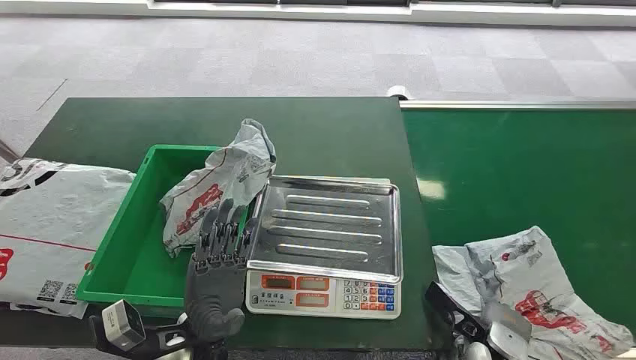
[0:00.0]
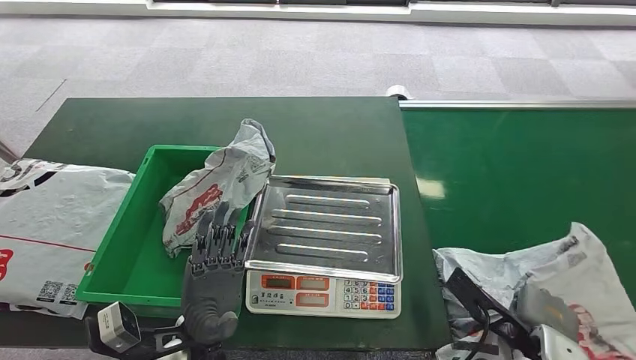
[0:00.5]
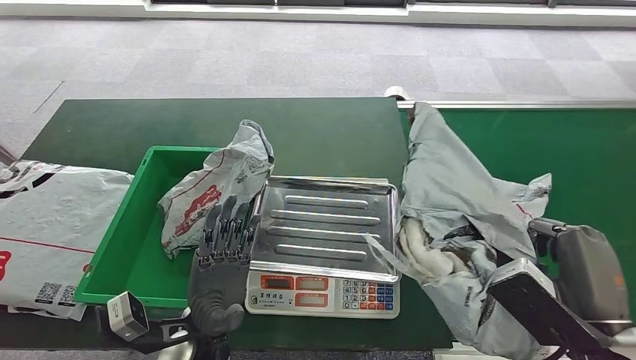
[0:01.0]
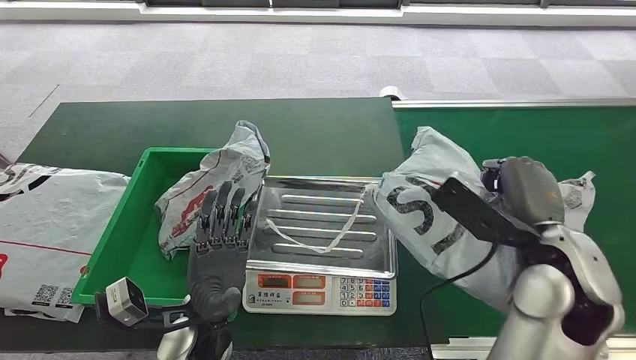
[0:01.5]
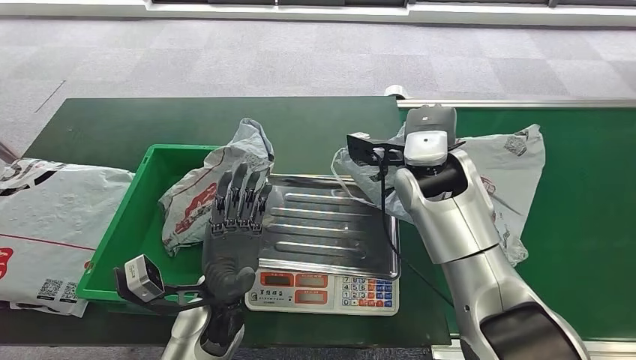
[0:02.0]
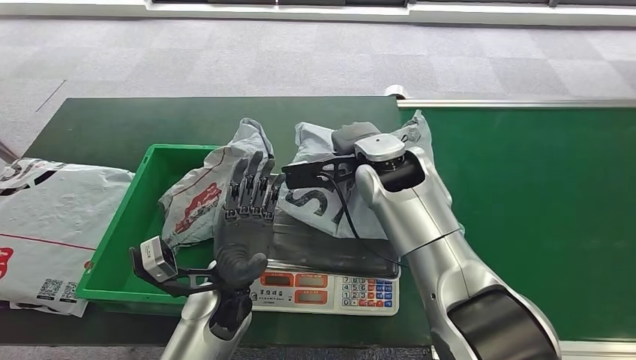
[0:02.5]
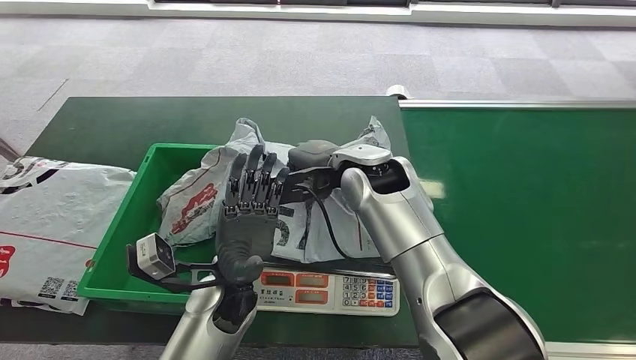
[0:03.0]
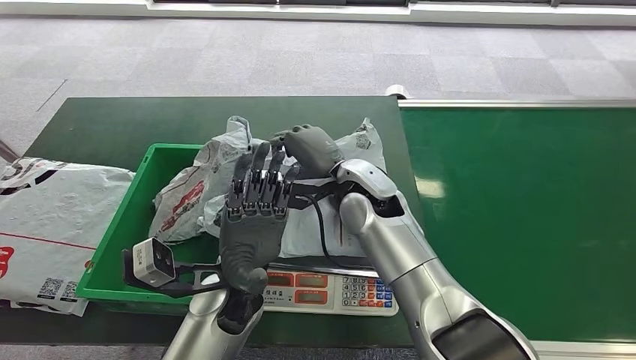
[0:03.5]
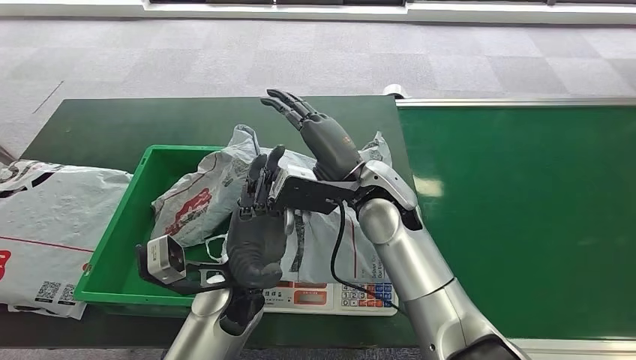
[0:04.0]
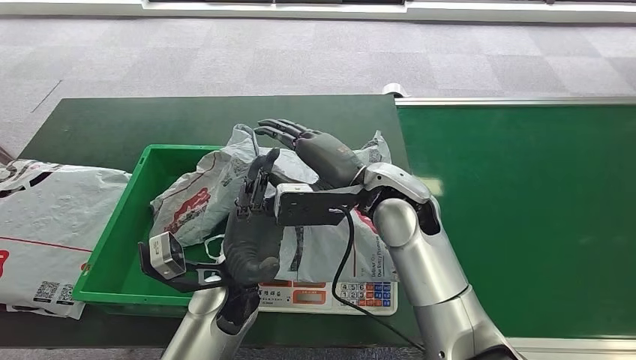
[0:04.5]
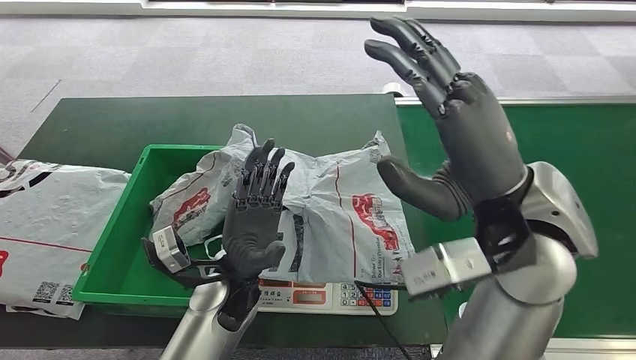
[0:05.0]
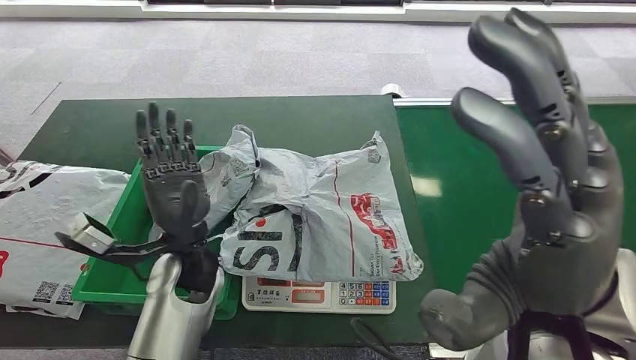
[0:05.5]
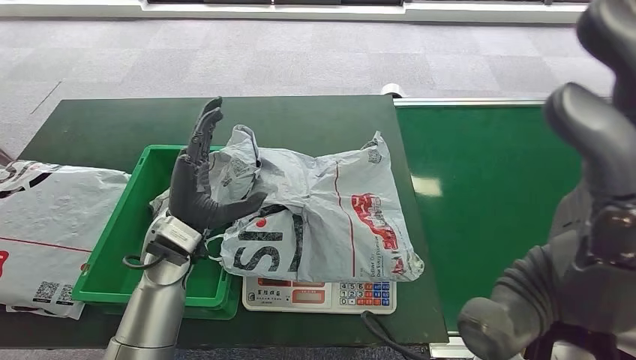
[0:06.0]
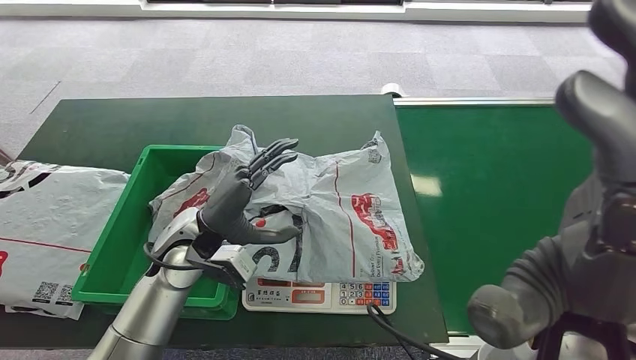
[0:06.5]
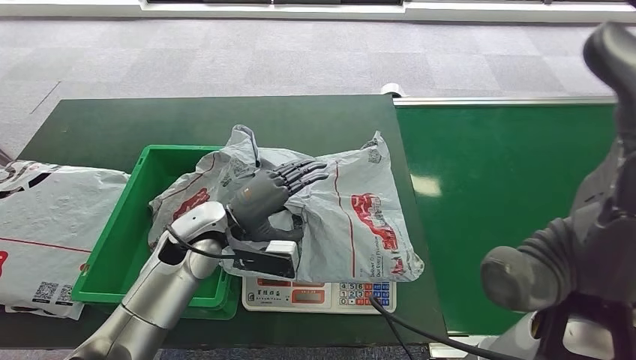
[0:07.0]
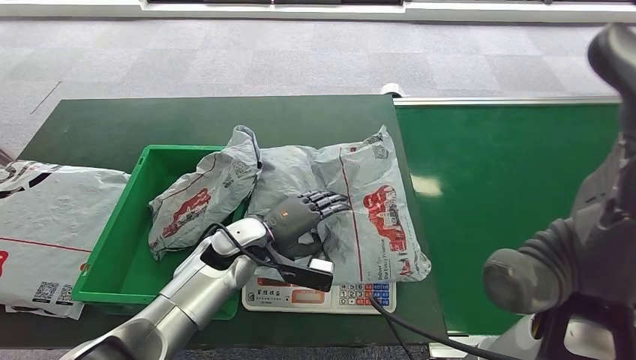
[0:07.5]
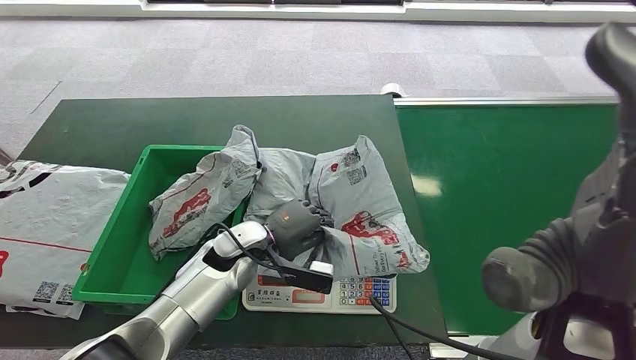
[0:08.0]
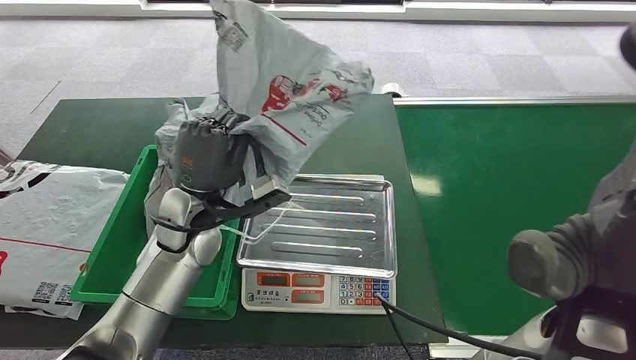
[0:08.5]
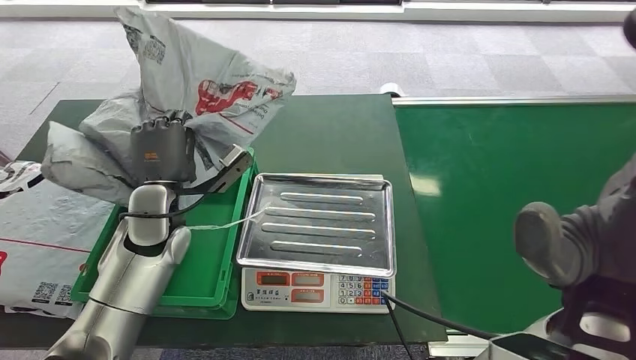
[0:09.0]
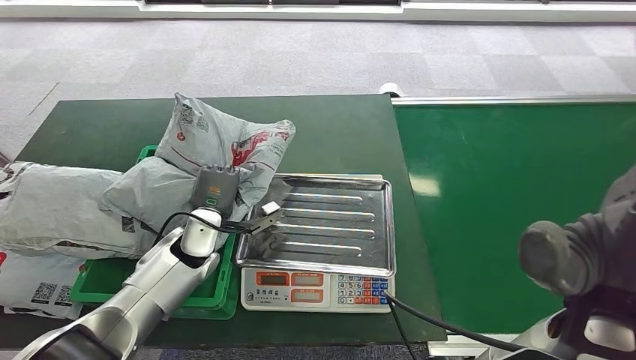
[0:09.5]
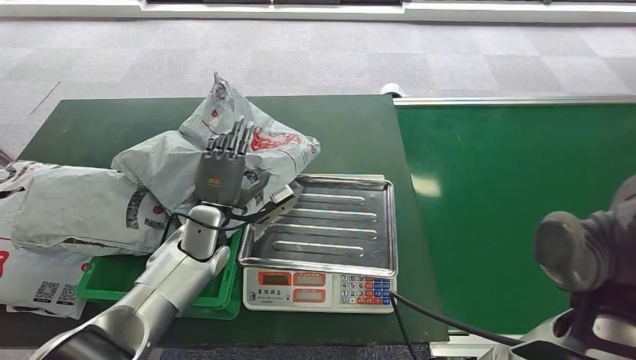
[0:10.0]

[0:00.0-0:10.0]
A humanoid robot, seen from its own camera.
Step, 0:00.0 to 0:00.5: Pick up the package from the conveyor belt.
Step, 0:01.5 to 0:04.5: Place the package onto the inbound machine.
Step, 0:05.0 to 0:08.5: Pick up the package from the inbound machine.
Step, 0:09.0 to 0:10.0: Place the package into the parcel locker.

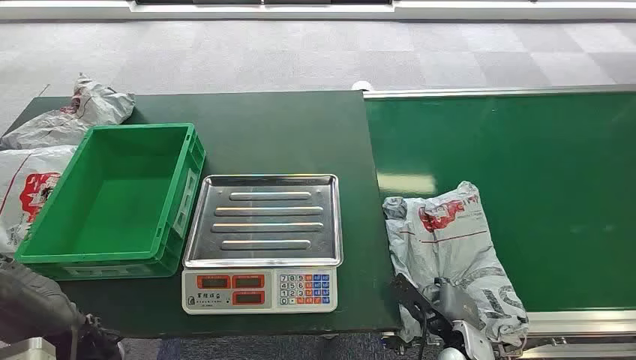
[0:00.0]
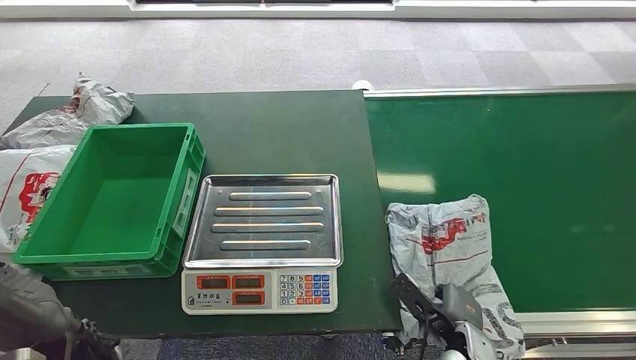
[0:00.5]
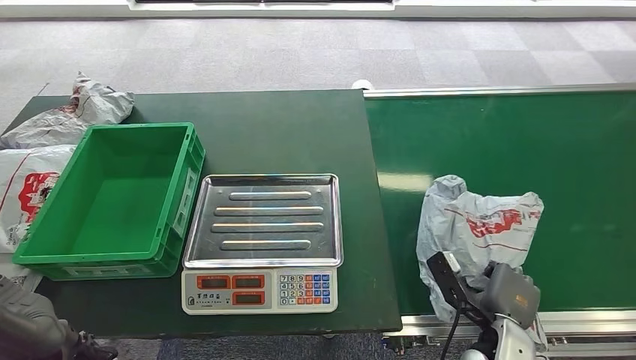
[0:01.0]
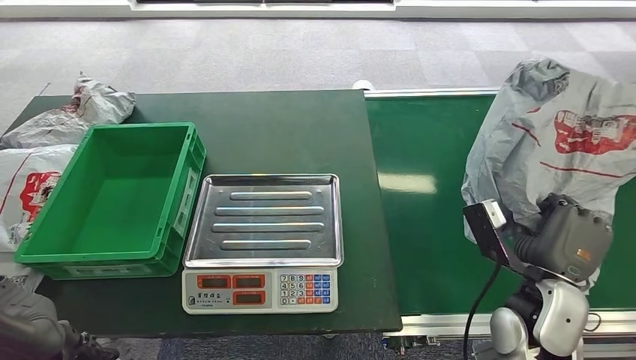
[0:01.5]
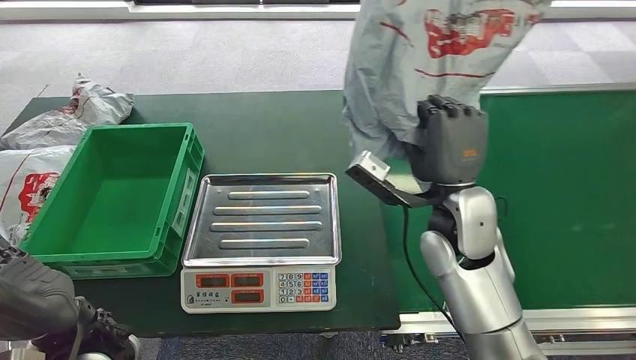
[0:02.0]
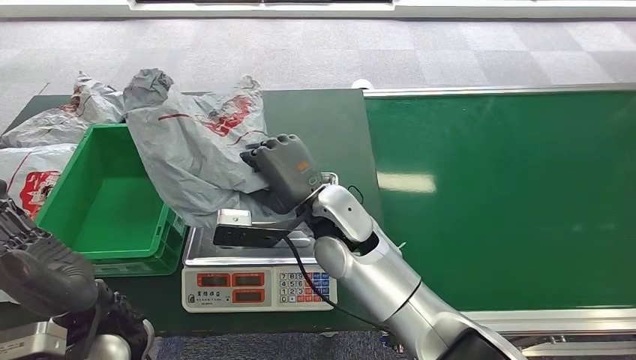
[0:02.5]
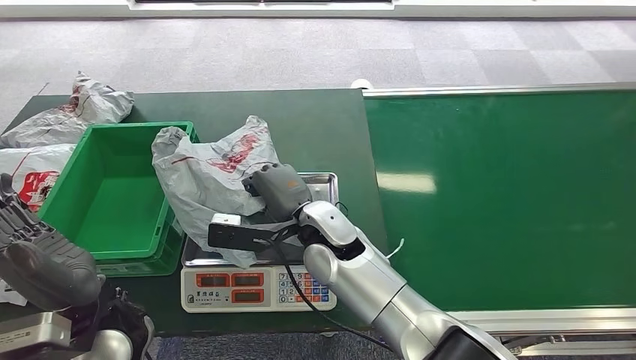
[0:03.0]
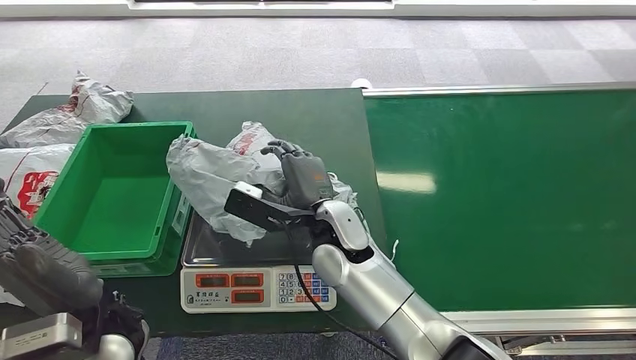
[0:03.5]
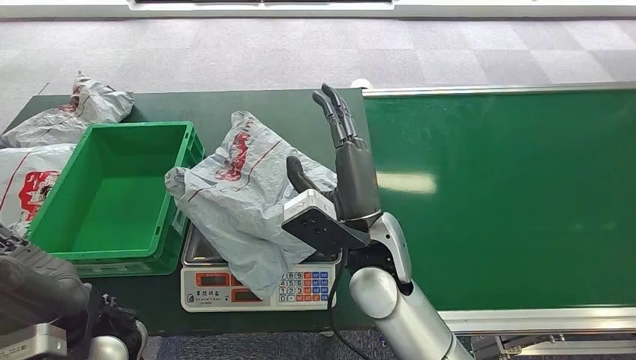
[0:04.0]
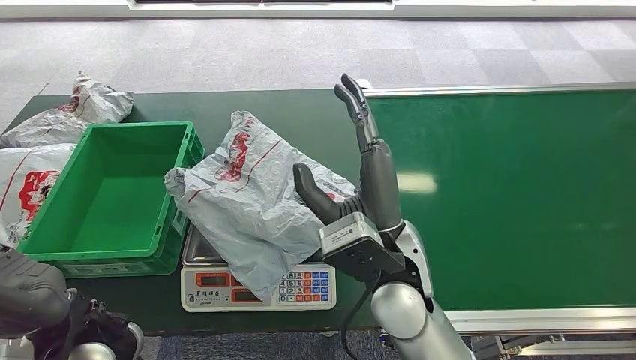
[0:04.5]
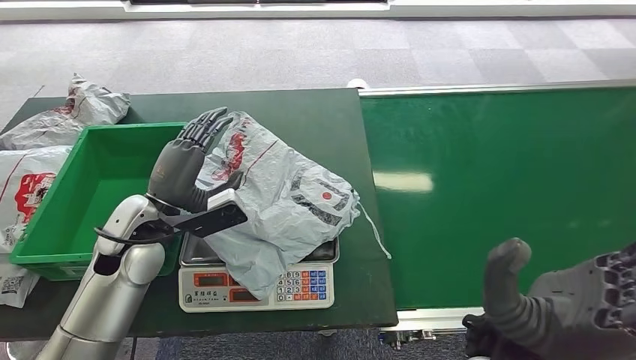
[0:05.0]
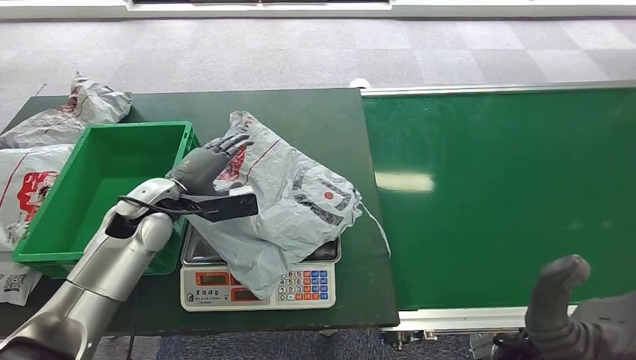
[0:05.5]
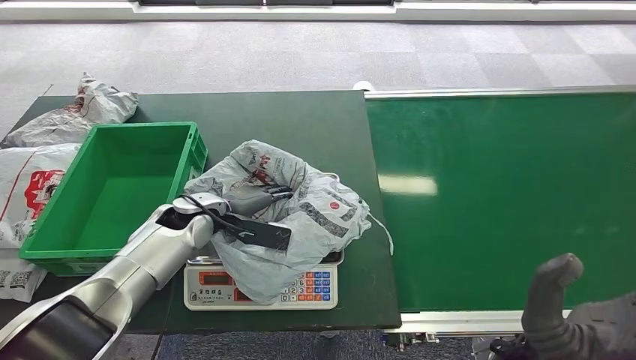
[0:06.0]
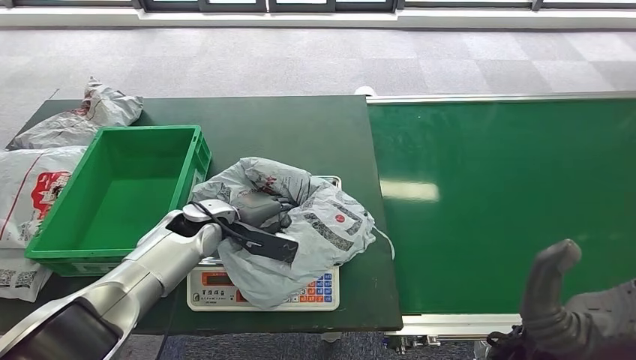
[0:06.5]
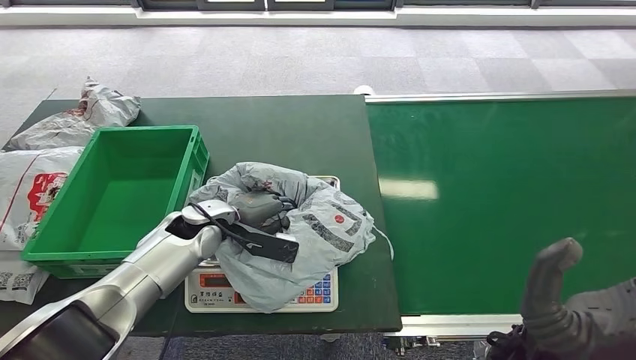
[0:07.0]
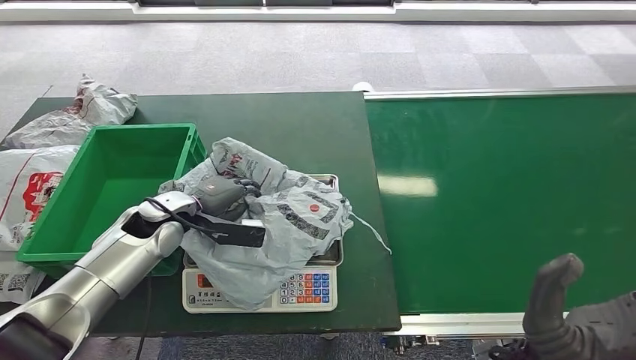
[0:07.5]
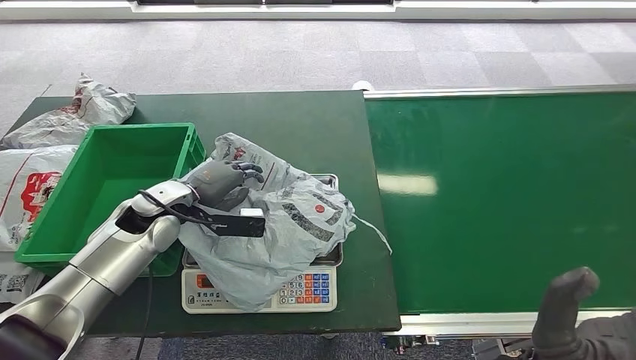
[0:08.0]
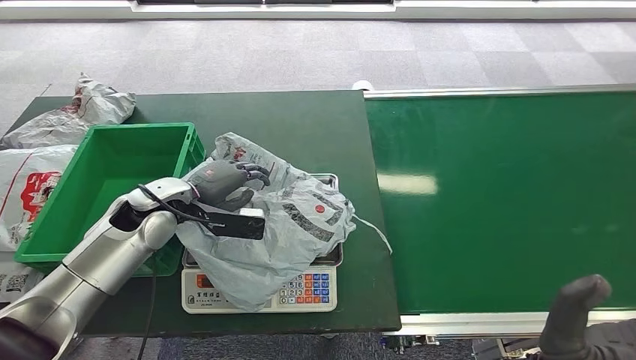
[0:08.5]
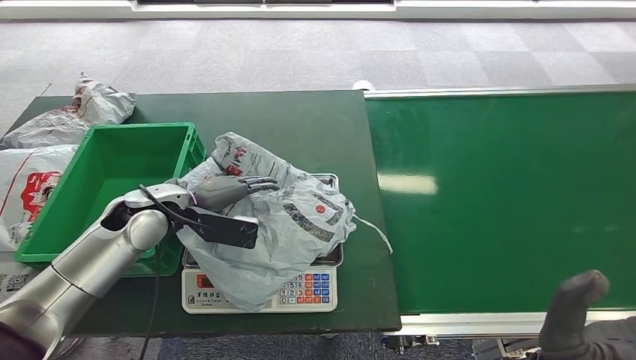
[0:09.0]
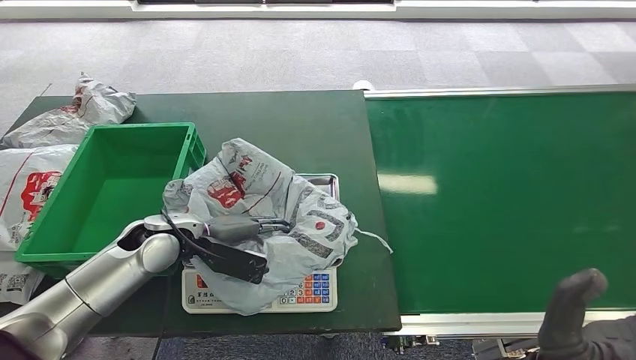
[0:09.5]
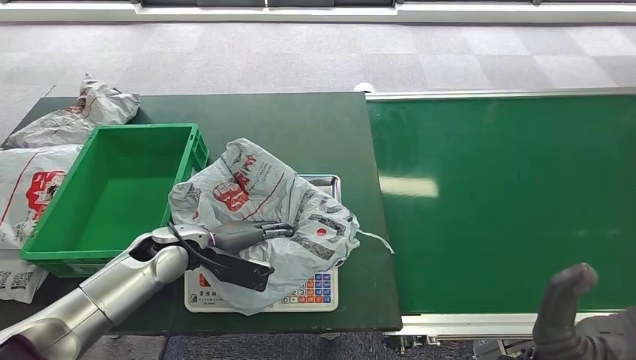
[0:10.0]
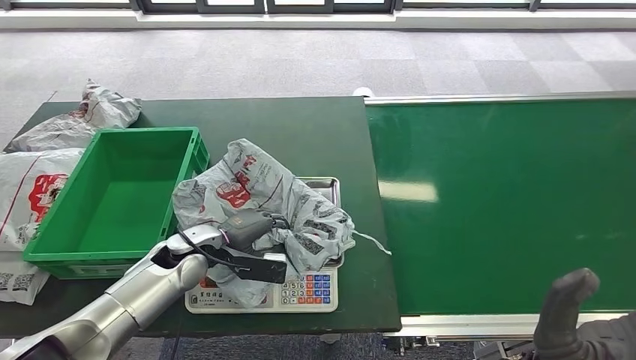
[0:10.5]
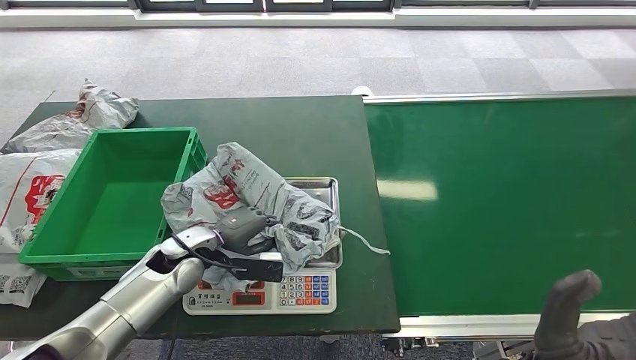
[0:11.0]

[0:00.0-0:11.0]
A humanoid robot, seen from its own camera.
Step, 0:00.0 to 0:01.5: Pick up the package from the conveyor belt.
Step, 0:02.0 to 0:04.5: Place the package onto the inbound machine.
0:07.5 to 0:09.0: The left hand moves upward, approximately 5 cm.
